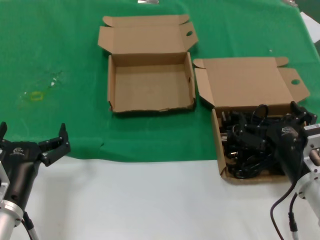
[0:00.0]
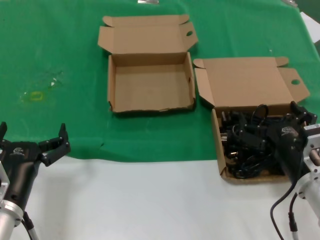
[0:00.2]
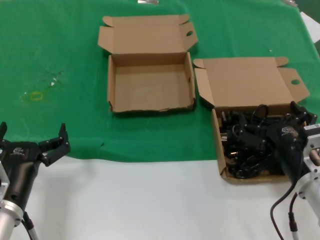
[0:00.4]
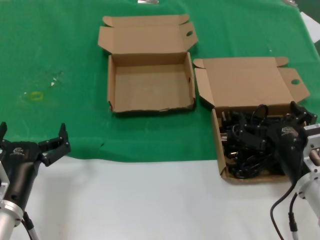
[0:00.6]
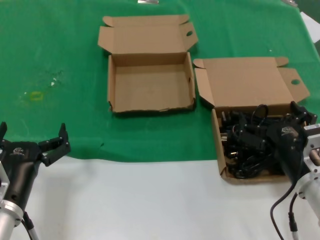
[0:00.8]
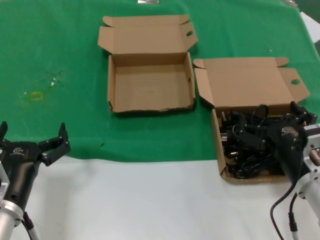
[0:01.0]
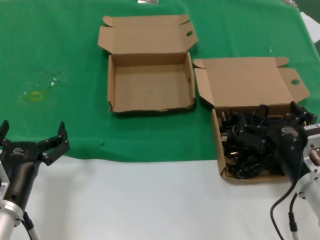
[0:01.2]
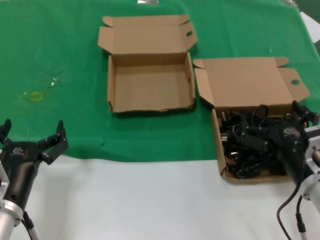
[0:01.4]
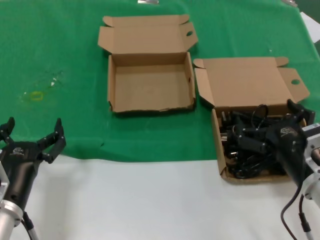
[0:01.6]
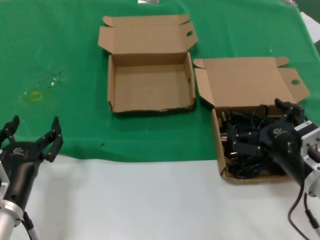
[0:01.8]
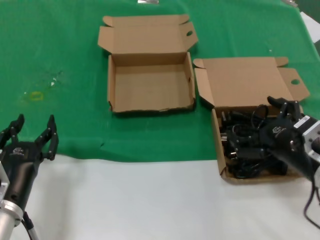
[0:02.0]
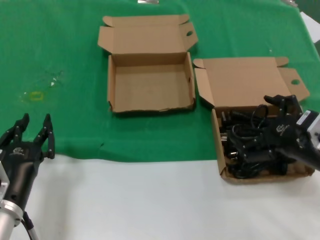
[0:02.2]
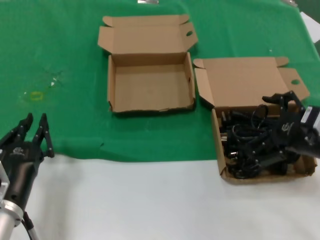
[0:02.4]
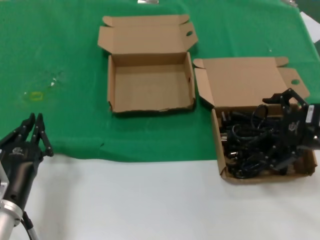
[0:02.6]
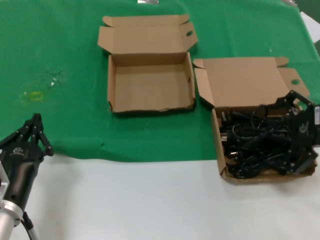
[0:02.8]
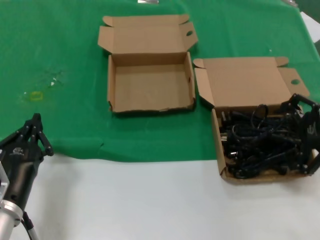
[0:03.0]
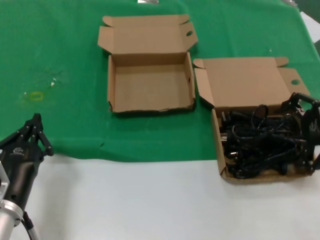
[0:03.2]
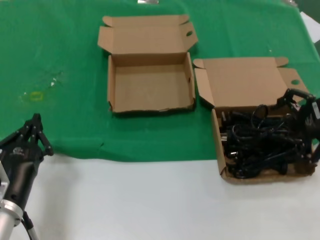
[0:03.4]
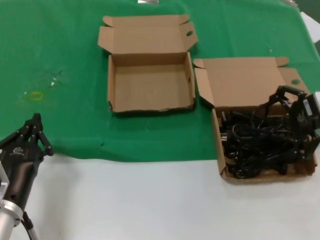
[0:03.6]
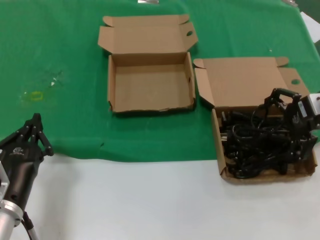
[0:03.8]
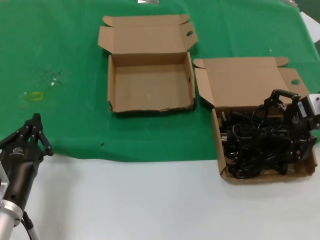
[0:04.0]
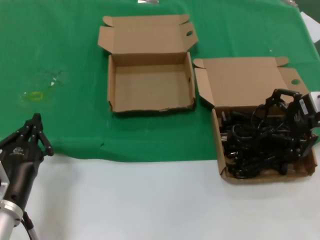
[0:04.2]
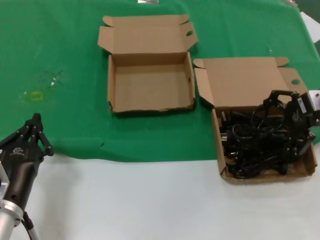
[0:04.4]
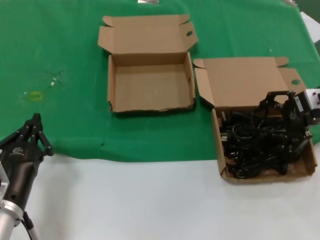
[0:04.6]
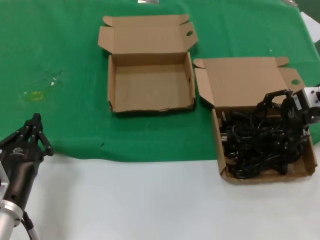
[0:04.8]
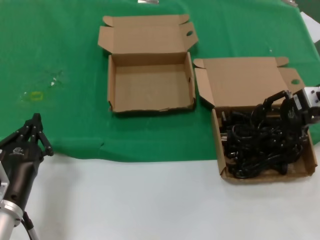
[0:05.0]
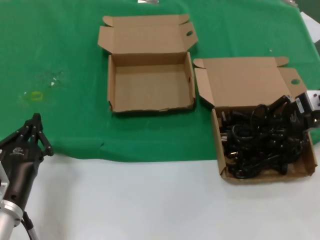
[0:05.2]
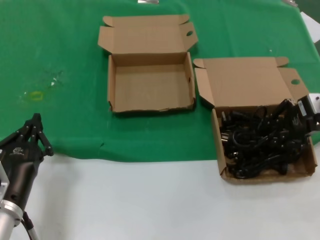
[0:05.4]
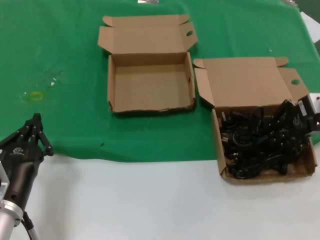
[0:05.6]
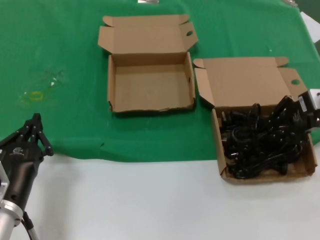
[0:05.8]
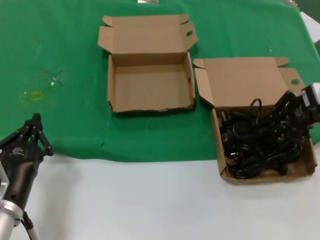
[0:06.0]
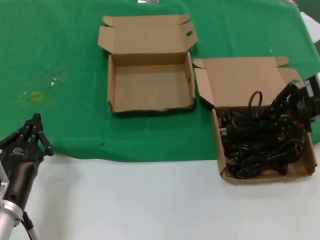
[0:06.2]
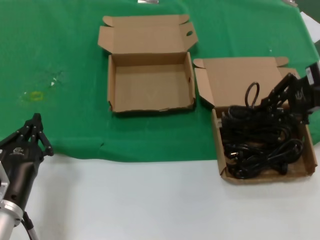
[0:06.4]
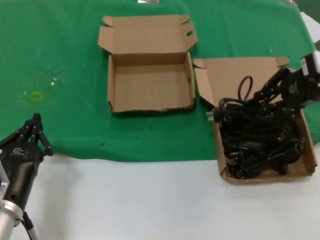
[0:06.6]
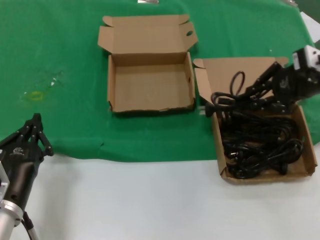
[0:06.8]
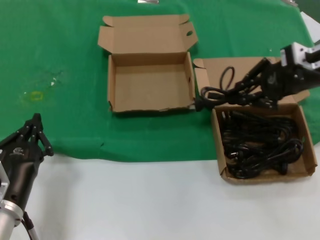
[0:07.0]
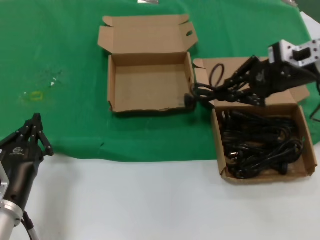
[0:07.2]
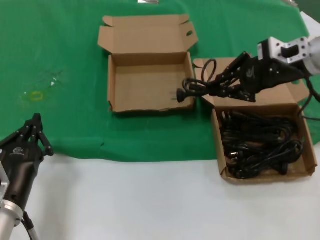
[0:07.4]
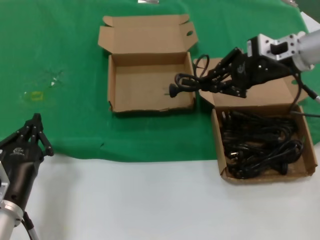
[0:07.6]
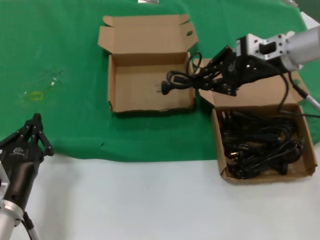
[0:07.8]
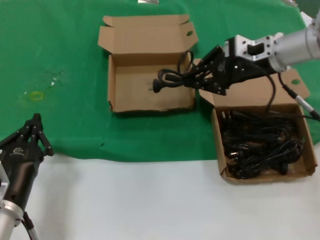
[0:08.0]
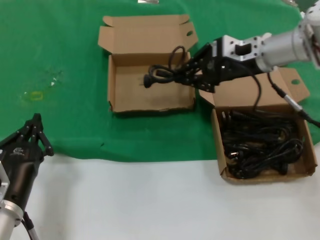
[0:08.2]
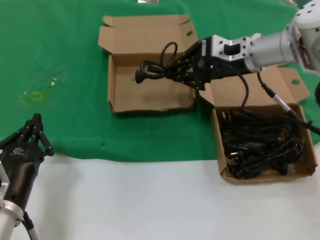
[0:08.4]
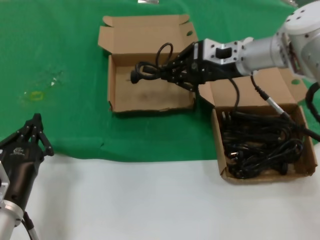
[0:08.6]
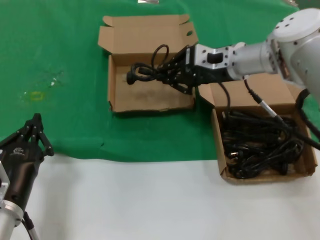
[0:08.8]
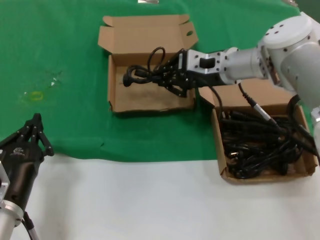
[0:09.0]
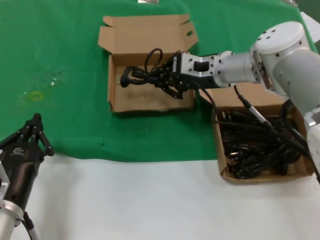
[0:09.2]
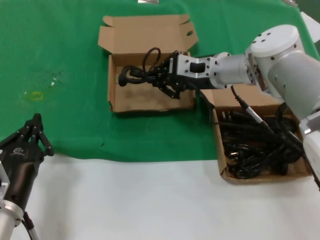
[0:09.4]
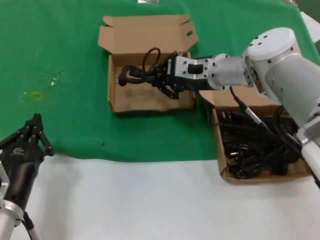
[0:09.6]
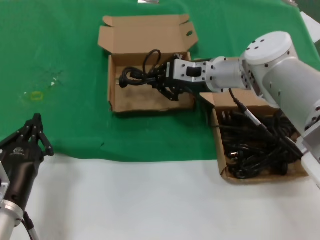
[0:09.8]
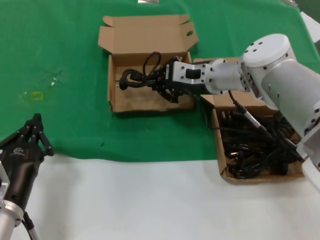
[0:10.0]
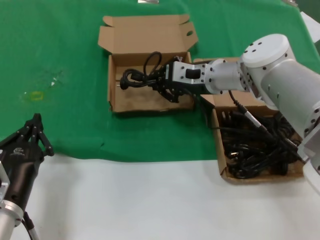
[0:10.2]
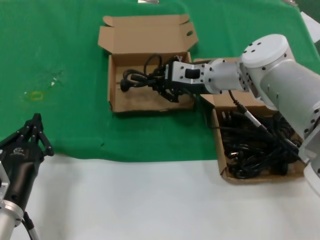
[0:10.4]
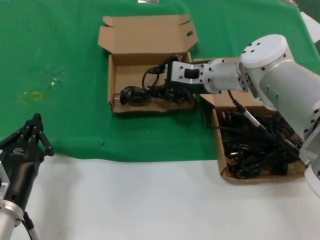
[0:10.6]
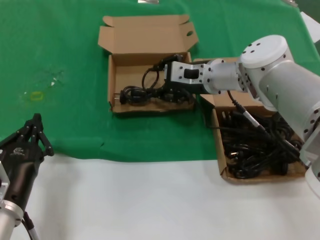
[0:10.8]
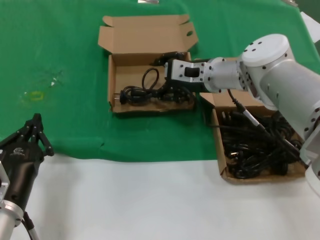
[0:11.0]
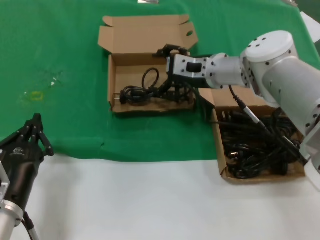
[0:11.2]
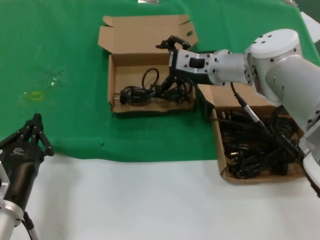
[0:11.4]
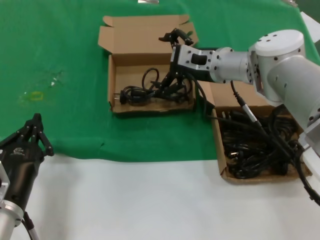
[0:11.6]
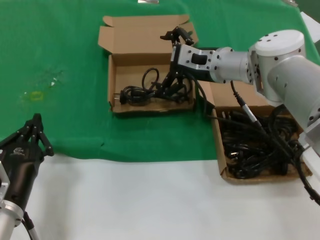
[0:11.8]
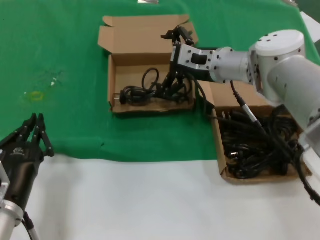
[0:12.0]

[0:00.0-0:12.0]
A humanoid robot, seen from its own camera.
Task of the whole recording: take the parts from the box containing them and put them into an empty box.
Step, 0:00.0 to 0:05.2: Grasp the data cable.
Step, 0:05.6 to 0:10.6: Place the data cable in the another box.
0:00.0 to 0:01.6: There are only small adjustments of the hands.
0:01.6 to 0:03.0: The right hand travels upward, to the right and forward by approximately 20 cm.
0:03.0 to 0:04.4: The right hand goes some 10 cm forward.
0:04.4 to 0:06.0: The hands make only small movements.
0:06.0 to 0:07.6: The right hand heads to the left and forward, covering roughly 10 cm.
0:07.6 to 0:09.0: The right hand heads to the left and downward, covering some 15 cm.
0:09.0 to 0:12.0: The hands stay close to where they were, moving slightly.

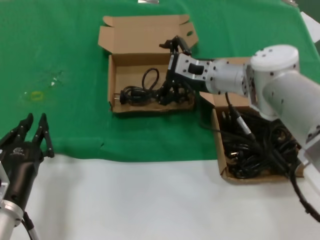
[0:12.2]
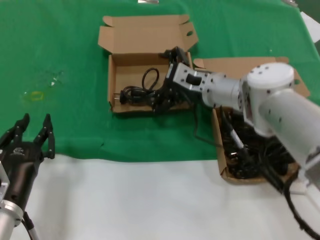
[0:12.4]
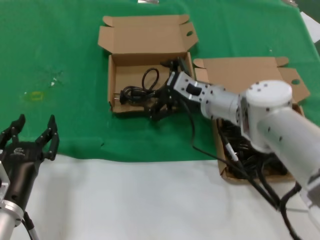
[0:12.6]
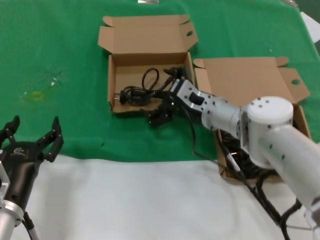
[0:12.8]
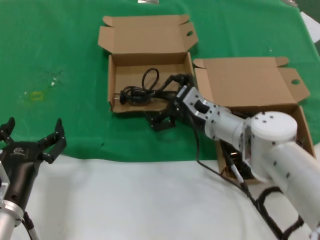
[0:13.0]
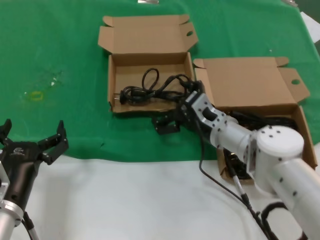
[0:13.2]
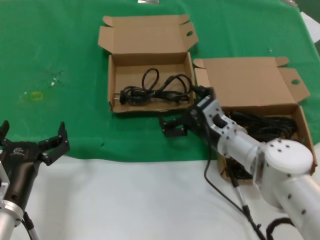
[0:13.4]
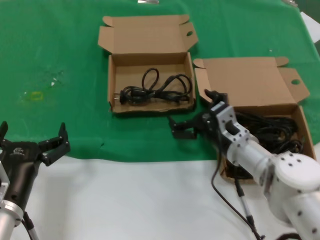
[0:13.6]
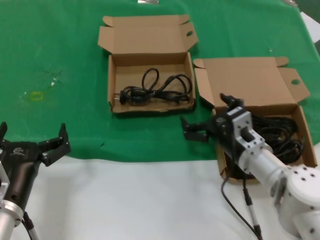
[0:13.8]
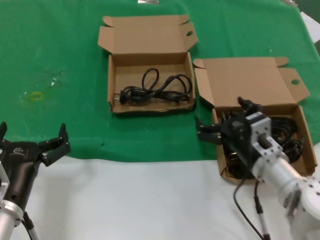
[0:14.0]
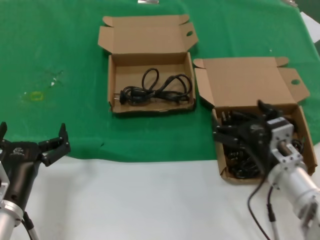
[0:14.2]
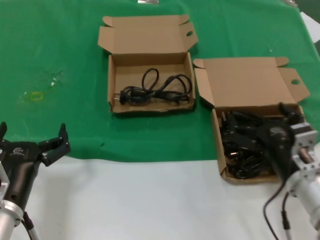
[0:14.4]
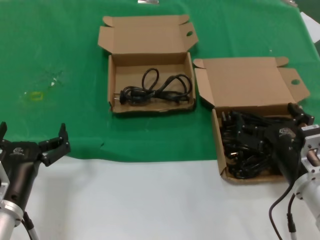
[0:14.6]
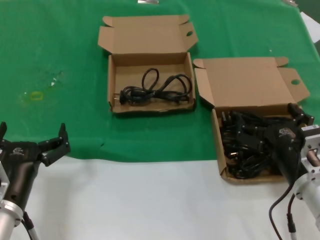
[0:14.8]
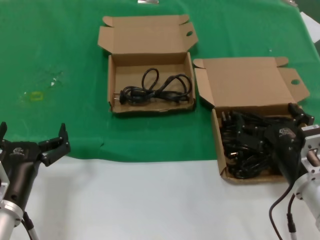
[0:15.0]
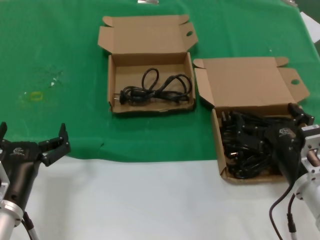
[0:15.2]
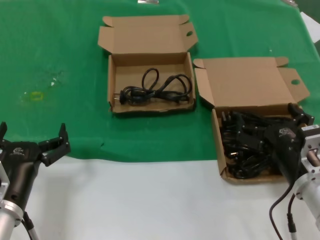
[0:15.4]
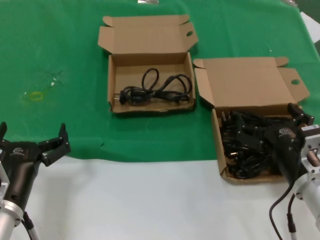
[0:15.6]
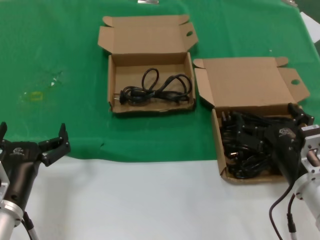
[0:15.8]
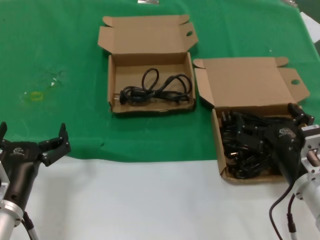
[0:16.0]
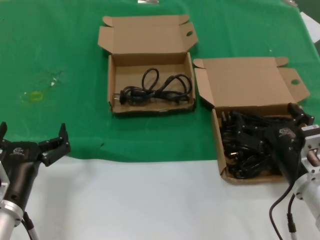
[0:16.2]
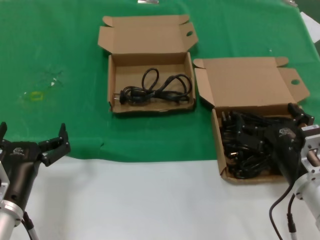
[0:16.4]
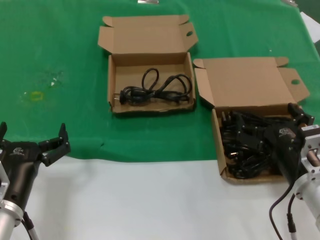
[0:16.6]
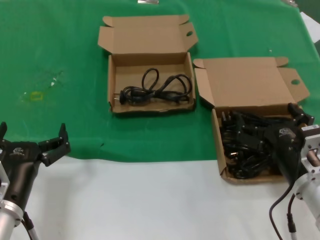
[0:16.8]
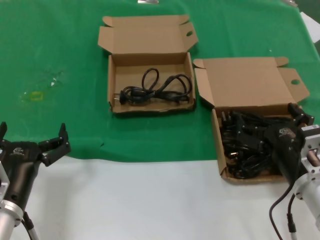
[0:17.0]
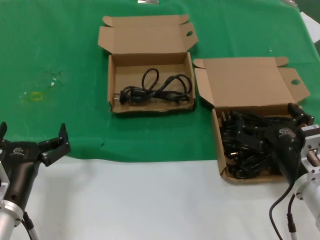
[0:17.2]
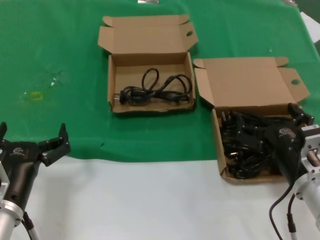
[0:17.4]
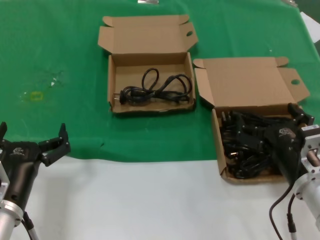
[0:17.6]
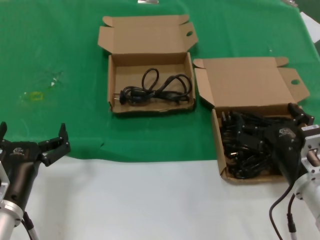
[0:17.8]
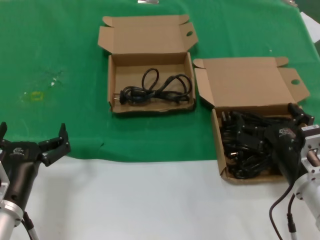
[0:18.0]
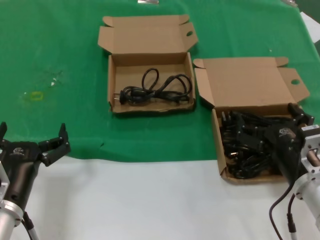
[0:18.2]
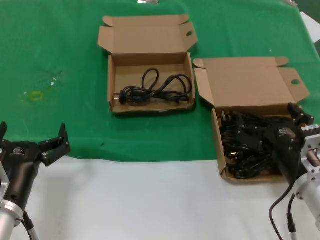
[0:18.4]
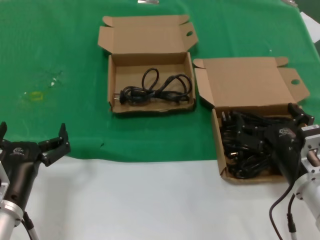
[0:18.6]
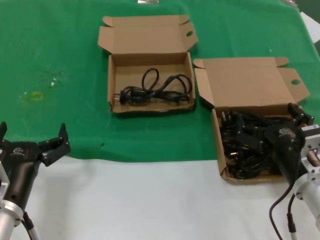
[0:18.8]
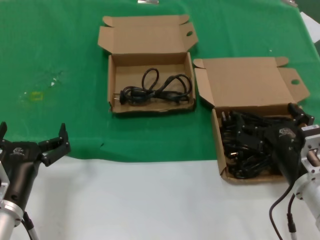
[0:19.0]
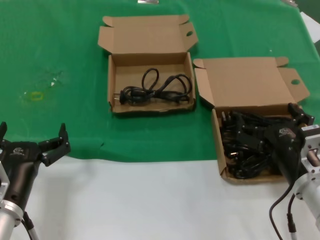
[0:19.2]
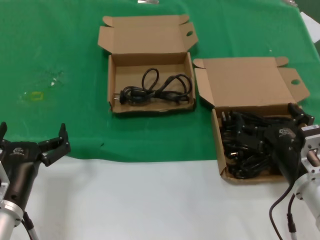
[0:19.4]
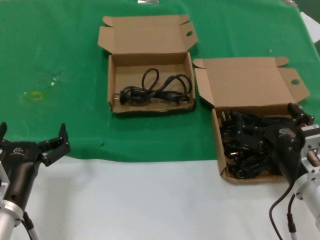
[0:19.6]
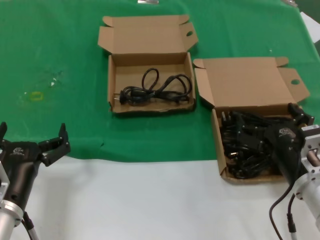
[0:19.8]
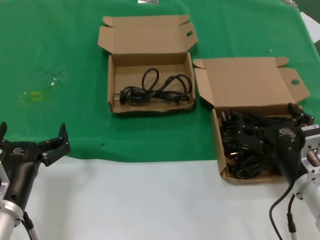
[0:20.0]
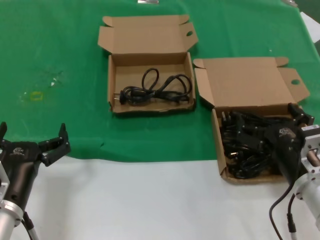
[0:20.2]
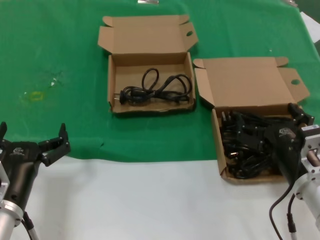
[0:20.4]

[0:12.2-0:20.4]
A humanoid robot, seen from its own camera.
Task of the whole recording: take the parts from the box containing them and put them into an empty box.
0:12.2 to 0:13.8: The right hand heads backward and downward, covering approximately 20 cm.
0:13.8 to 0:15.4: The right hand moves backward and to the right, approximately 10 cm.
0:15.4 to 0:20.4: Neither hand changes place.
